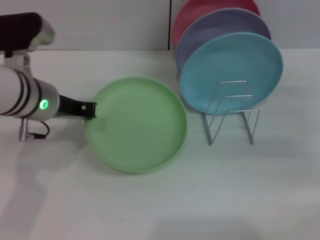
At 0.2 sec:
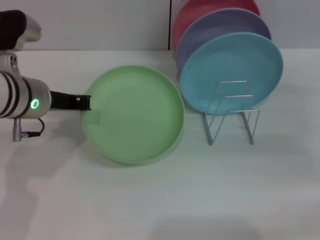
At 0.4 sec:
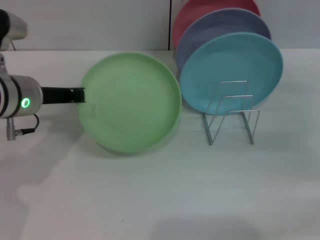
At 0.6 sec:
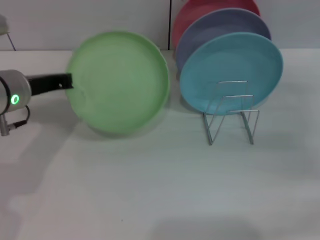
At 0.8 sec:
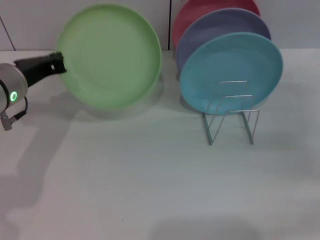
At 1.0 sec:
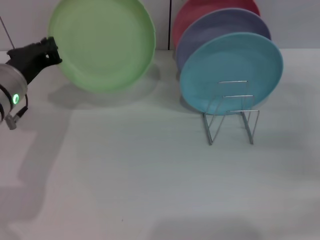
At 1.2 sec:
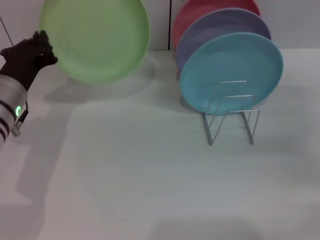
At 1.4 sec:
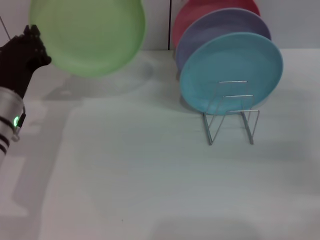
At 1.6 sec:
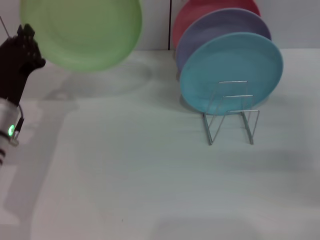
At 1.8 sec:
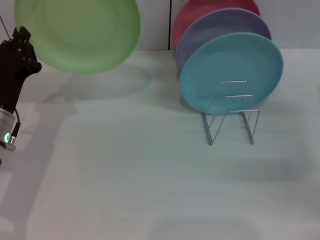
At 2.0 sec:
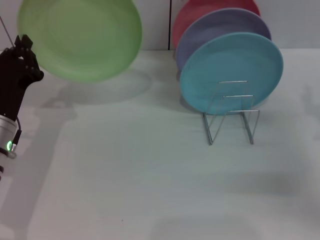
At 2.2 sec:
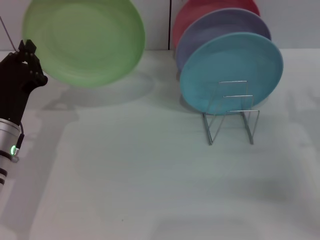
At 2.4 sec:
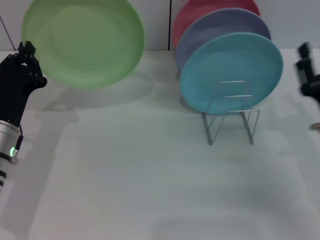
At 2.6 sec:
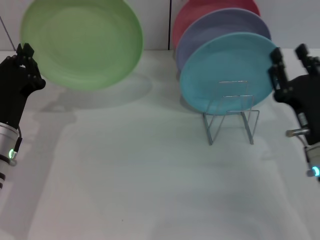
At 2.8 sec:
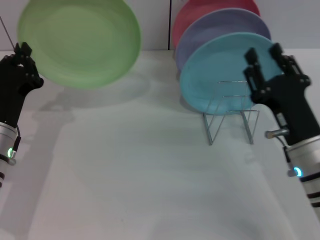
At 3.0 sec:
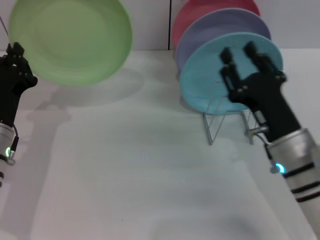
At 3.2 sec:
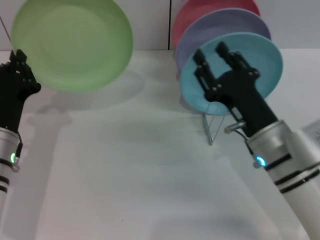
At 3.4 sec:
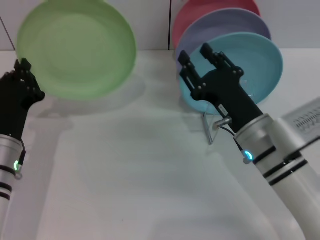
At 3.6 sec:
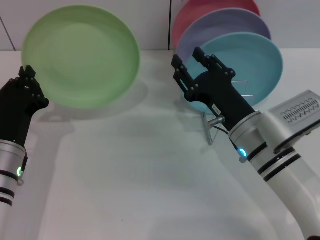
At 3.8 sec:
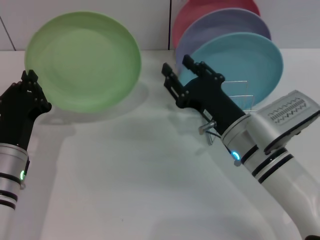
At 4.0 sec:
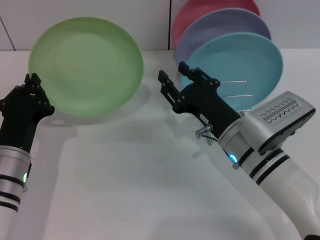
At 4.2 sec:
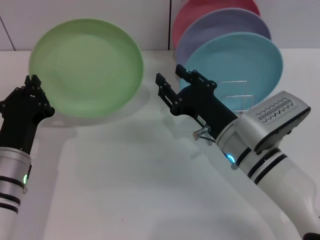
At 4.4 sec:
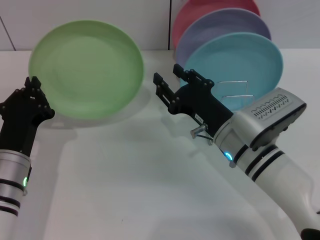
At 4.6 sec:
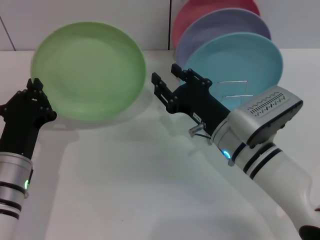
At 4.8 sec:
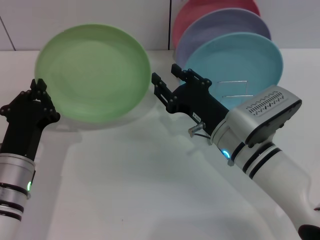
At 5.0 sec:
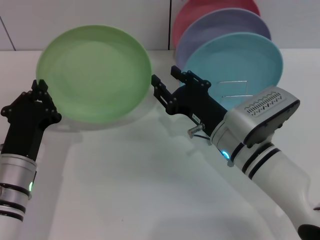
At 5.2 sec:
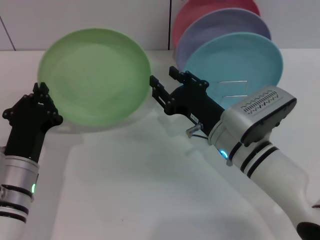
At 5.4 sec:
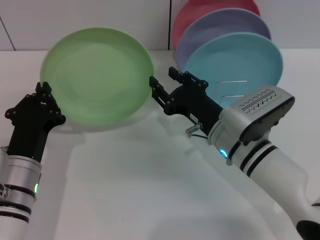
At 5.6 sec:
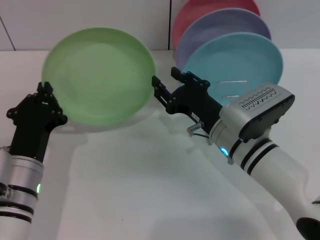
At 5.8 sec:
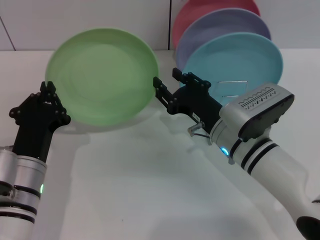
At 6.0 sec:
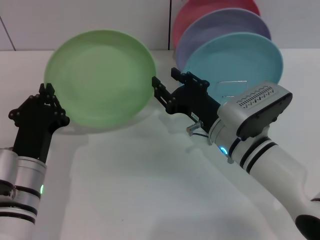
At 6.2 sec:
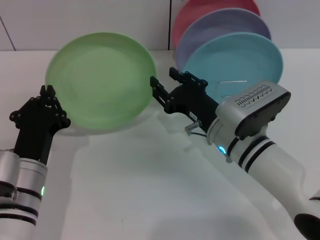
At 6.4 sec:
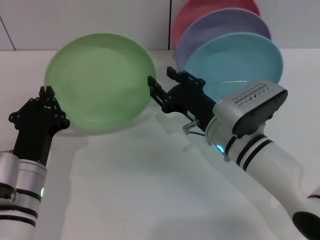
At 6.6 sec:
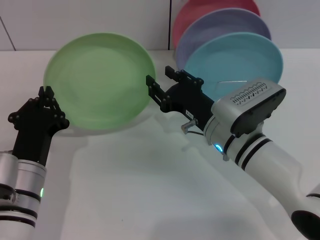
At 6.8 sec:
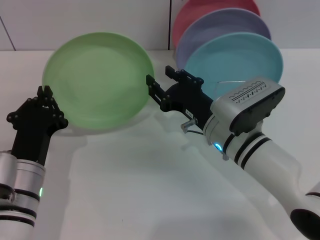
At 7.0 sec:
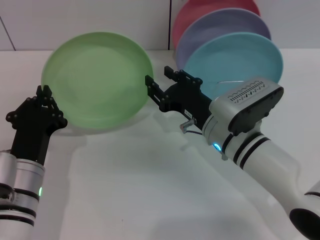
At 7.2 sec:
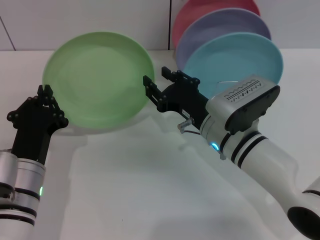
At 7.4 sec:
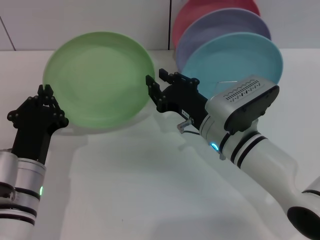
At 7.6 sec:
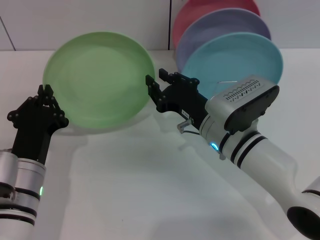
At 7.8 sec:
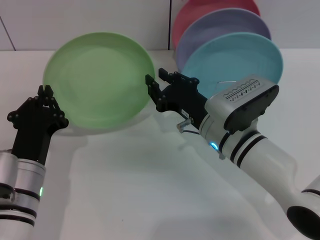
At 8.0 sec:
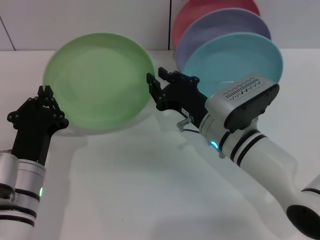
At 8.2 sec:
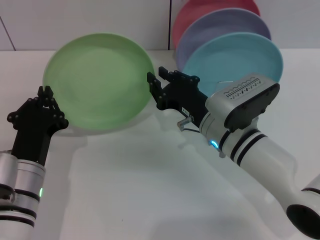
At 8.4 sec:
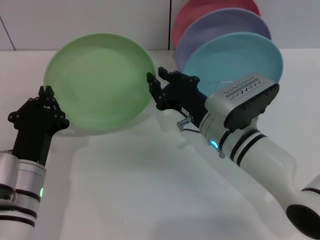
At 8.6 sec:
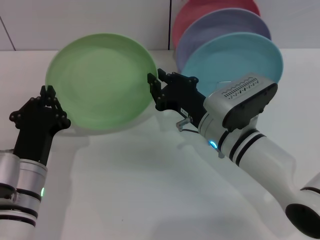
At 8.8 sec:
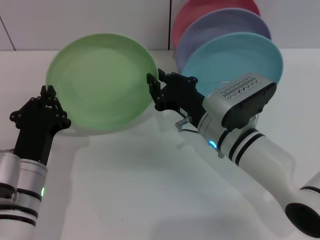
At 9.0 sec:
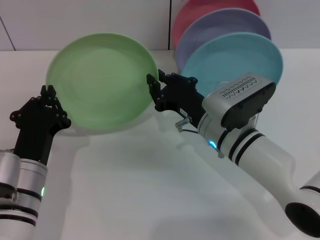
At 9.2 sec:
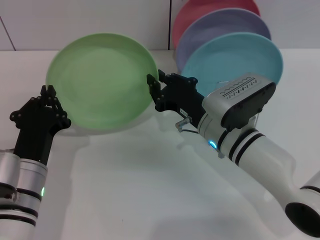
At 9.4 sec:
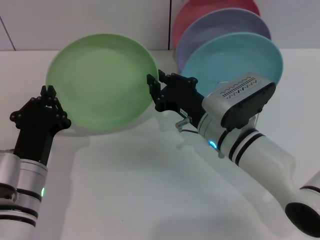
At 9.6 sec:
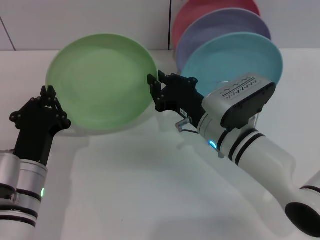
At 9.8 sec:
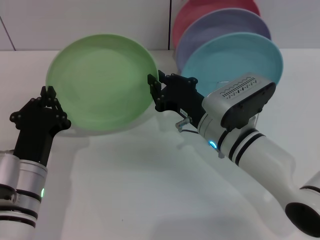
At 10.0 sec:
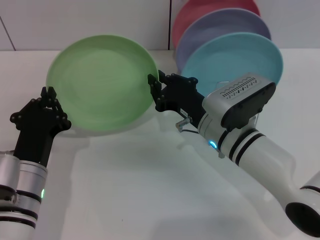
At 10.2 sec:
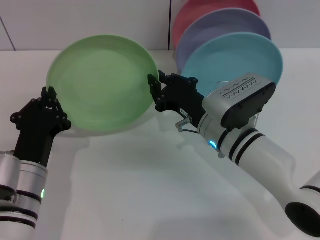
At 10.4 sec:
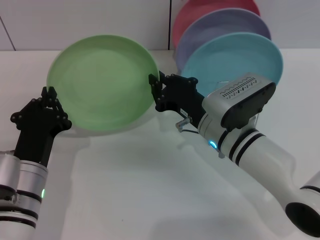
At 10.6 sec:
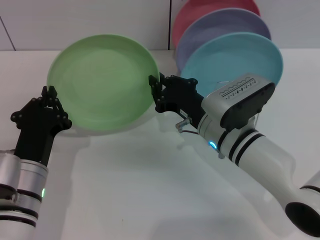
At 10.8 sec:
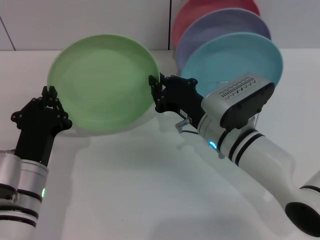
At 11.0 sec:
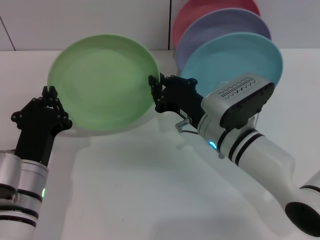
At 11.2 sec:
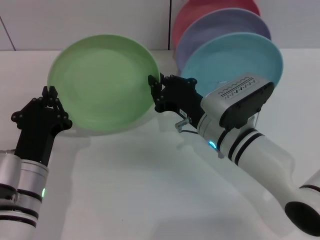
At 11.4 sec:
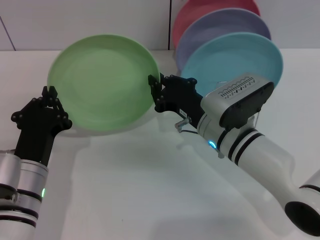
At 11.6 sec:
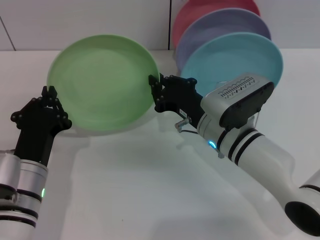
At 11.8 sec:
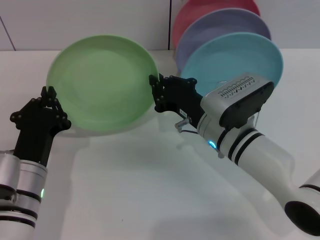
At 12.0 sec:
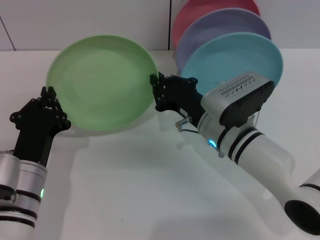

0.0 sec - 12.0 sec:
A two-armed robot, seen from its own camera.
Task of the whole recording: Grip the plate with one hand, pass it to the other, then set it on the shelf.
0.0 sec - 1.6 sec: The left gripper goes approximately 10 cm downward and to the left.
1.6 sec - 3.0 sec: The right gripper moves to the left, roughly 15 cm.
3.0 sec - 4.4 sec: The right gripper moves about 5 cm.
4.4 sec - 7.6 sec: The grippers move only a little.
7.6 sec - 12.0 sec: Neither gripper changes place.

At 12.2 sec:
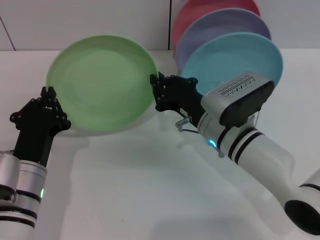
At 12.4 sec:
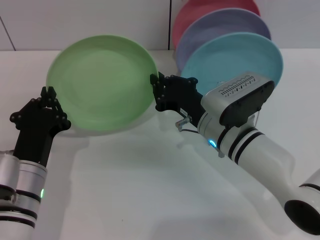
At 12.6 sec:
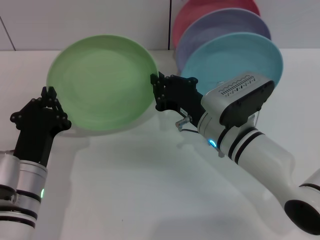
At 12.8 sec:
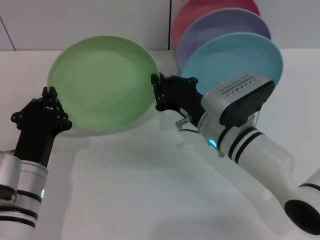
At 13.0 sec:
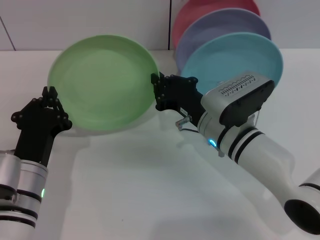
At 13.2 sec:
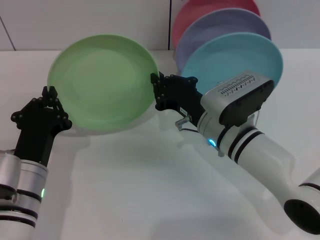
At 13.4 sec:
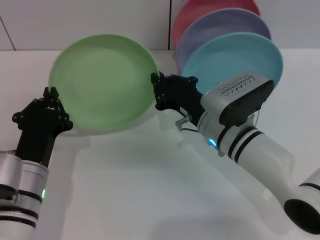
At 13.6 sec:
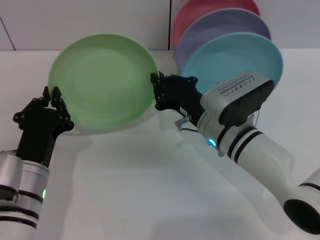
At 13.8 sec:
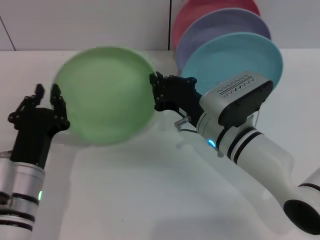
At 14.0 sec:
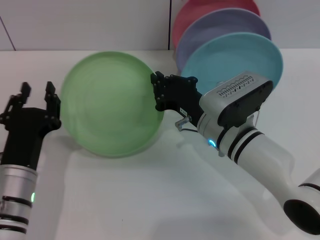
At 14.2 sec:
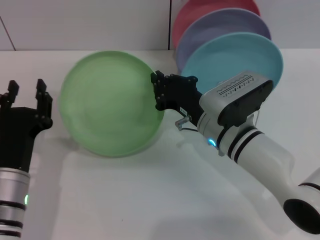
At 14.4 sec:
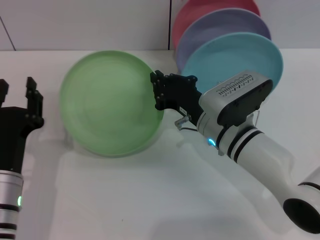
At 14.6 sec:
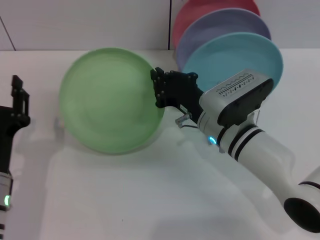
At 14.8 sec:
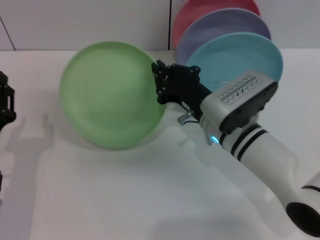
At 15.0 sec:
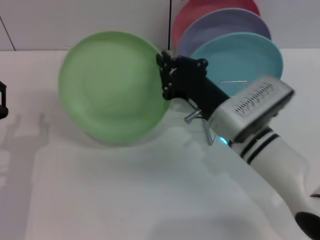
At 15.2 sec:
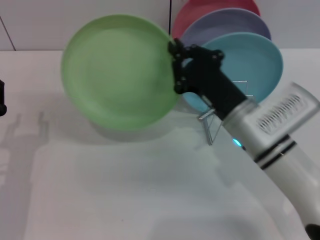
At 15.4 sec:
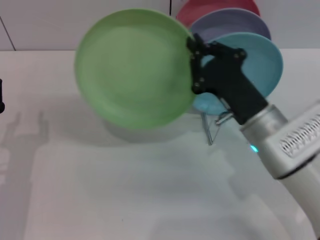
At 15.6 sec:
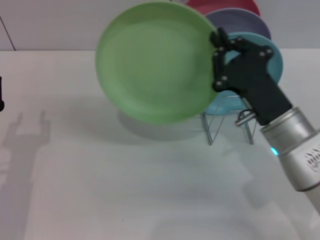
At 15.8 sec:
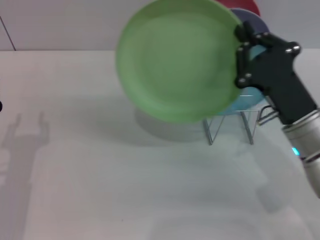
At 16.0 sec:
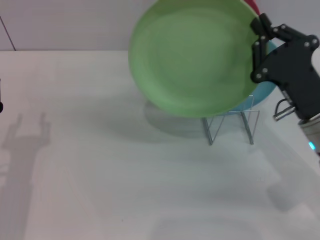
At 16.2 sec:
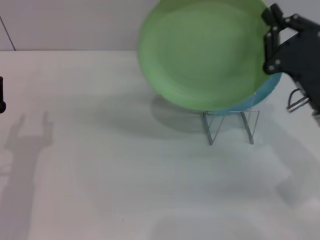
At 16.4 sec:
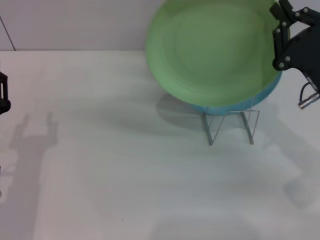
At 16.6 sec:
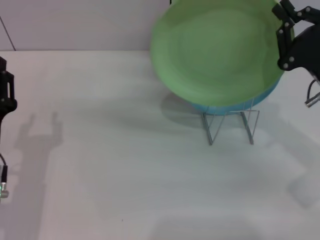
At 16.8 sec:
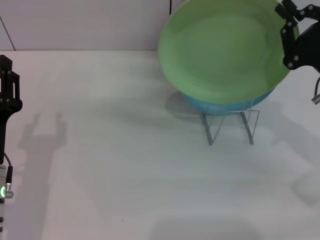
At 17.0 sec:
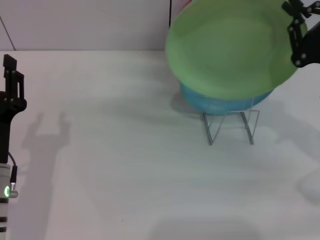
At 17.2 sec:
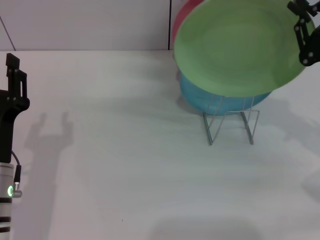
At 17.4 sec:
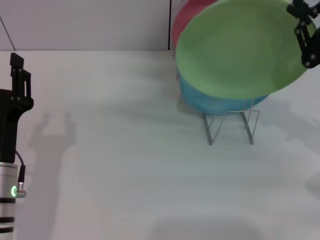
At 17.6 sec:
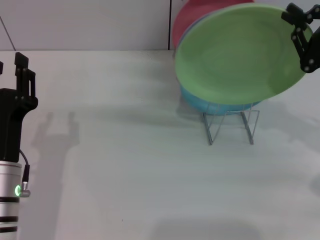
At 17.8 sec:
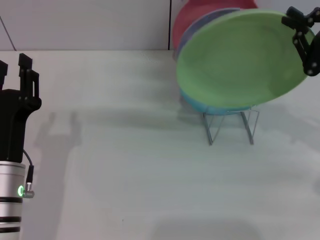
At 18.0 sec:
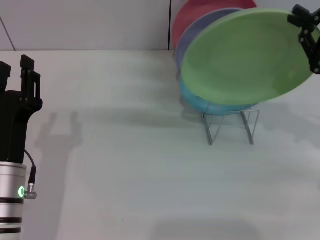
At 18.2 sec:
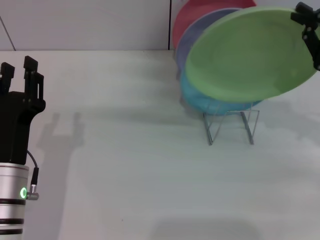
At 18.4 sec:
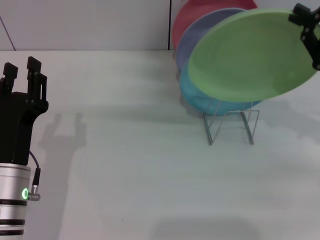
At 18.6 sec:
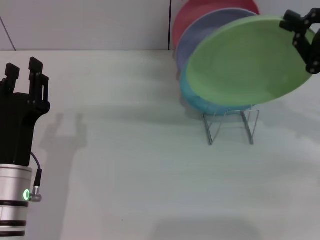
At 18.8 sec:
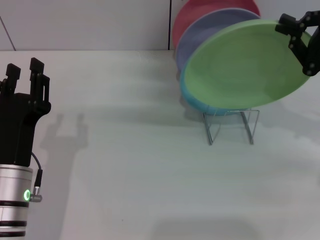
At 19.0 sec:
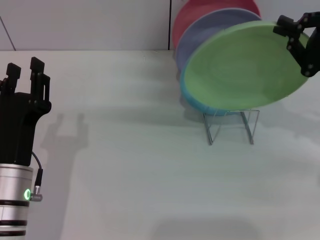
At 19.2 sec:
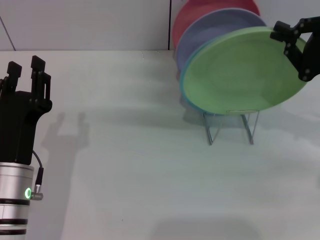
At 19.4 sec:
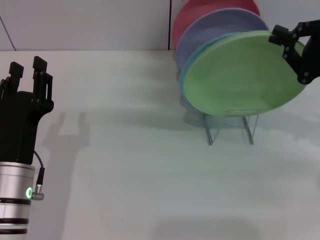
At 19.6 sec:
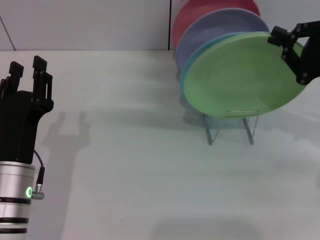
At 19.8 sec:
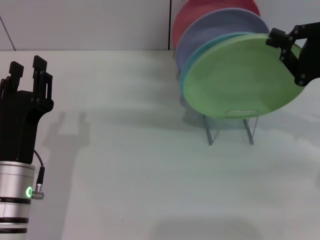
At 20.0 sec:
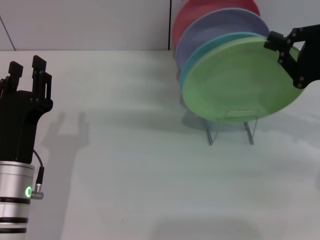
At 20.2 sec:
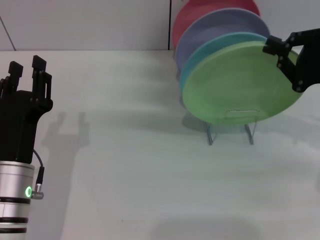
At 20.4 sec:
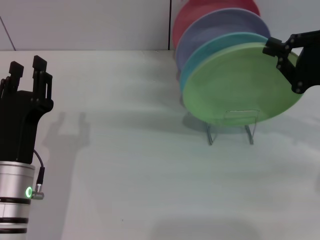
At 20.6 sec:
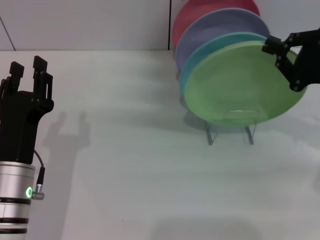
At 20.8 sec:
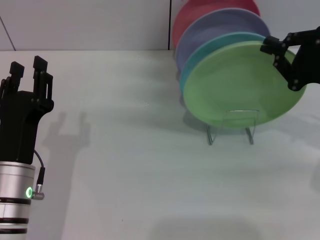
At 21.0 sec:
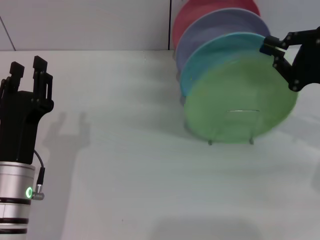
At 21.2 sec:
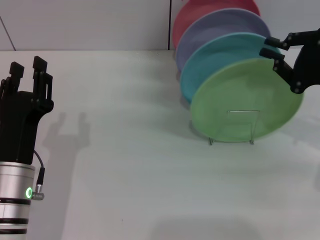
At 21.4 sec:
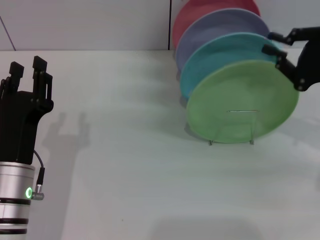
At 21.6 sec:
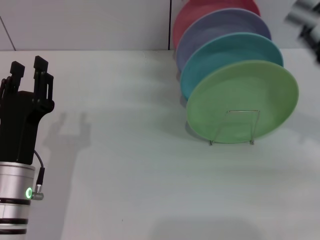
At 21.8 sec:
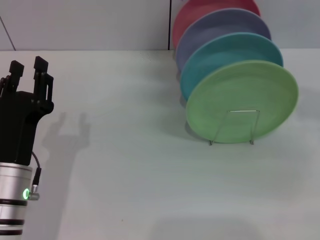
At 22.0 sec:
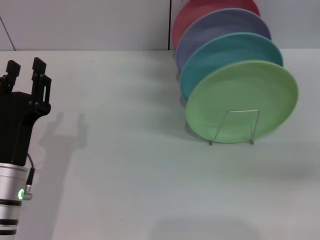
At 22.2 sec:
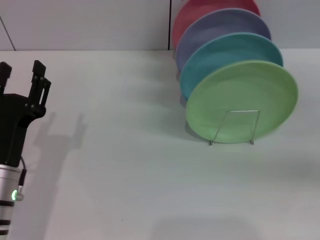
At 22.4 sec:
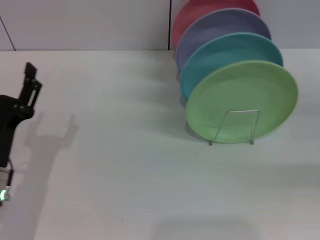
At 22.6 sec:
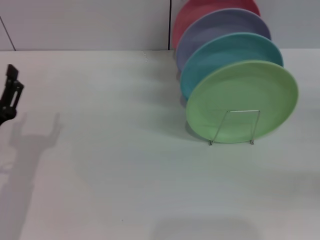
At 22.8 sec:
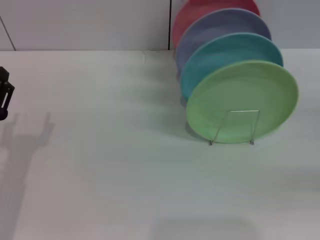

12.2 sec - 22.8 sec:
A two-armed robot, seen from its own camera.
Task of the whole recording: Grip the plate with one hand, pass it to the other, then set it on the shelf.
Step, 14.2 sec - 21.2 sec: Place the plate on the shelf with the right gripper.
12.2 sec - 13.8 sec: Both grippers stay about where they are.
13.8 sec - 15.2 sec: The left gripper heads to the left, covering roughly 5 cm, and opens its fingers.
15.2 sec - 16.8 sec: The right gripper goes roughly 15 cm to the right.
16.8 sec - 18.2 sec: The right gripper heads to the right, covering roughly 5 cm.
18.2 sec - 21.2 sec: There are only small adjustments of the grippers.
21.2 sec - 22.8 sec: The left gripper goes roughly 10 cm to the left, and opens up. Meanwhile the right gripper travels to the right and backward by some 15 cm, and opens.
